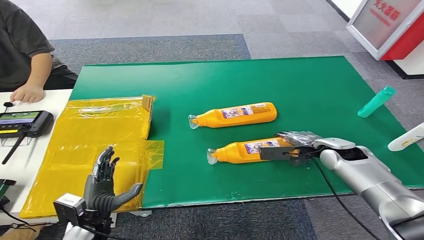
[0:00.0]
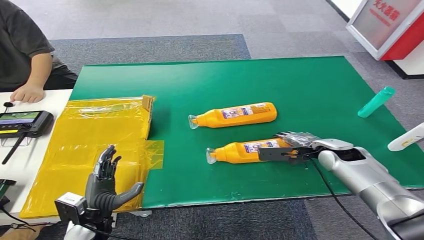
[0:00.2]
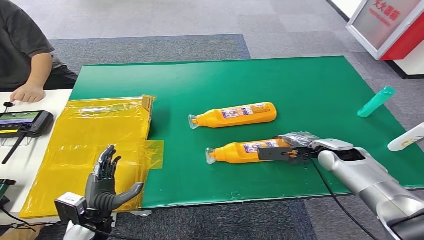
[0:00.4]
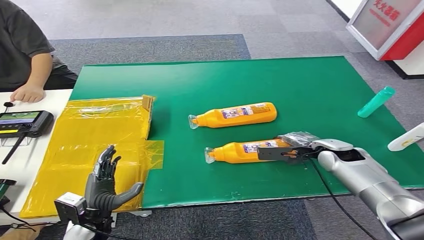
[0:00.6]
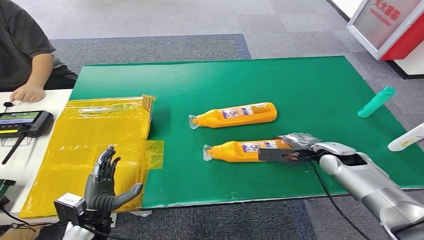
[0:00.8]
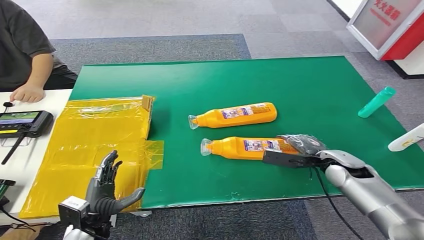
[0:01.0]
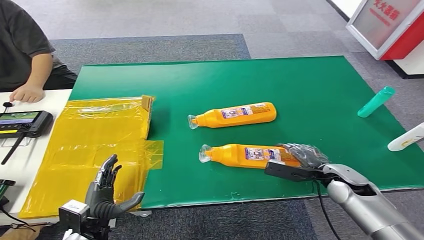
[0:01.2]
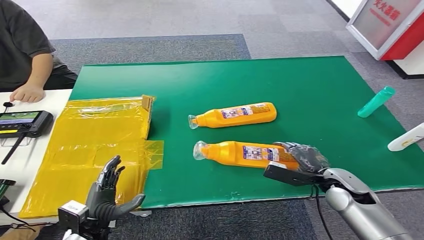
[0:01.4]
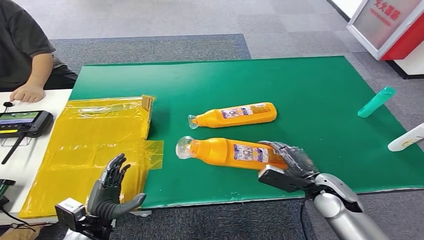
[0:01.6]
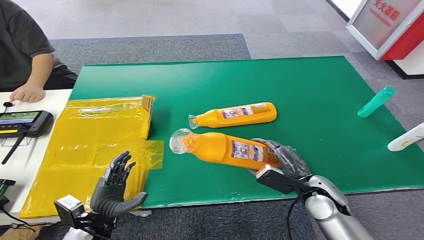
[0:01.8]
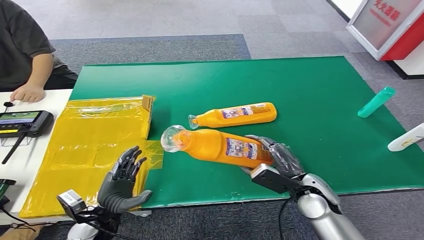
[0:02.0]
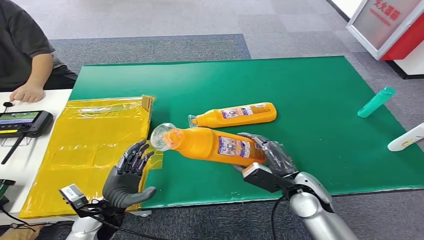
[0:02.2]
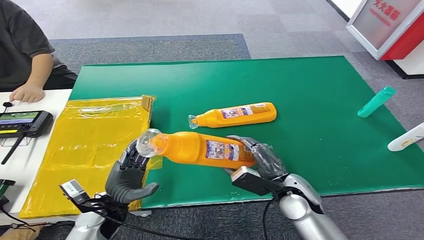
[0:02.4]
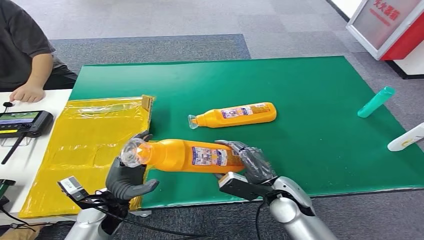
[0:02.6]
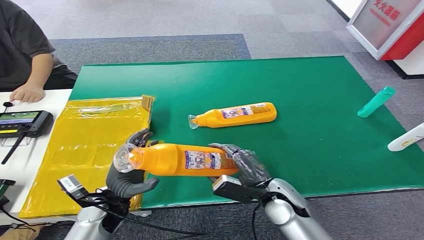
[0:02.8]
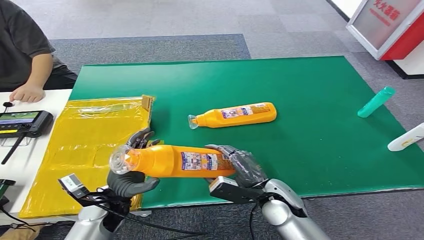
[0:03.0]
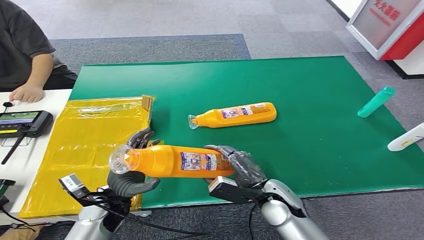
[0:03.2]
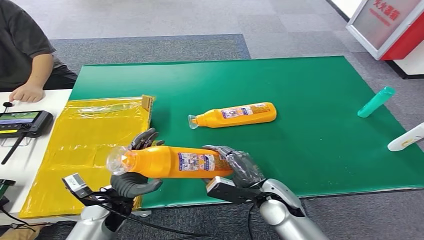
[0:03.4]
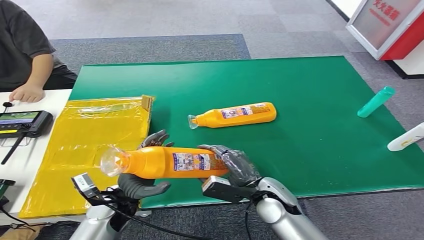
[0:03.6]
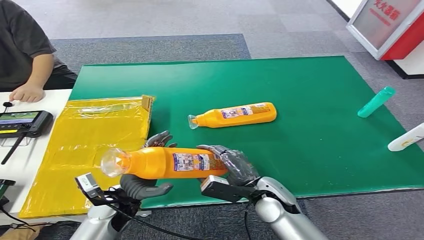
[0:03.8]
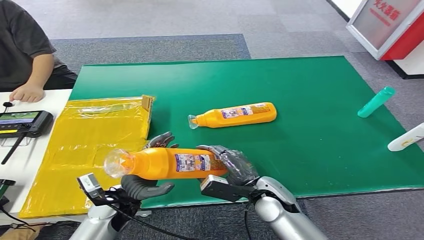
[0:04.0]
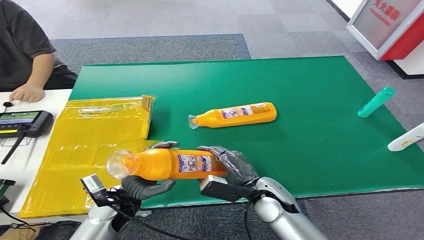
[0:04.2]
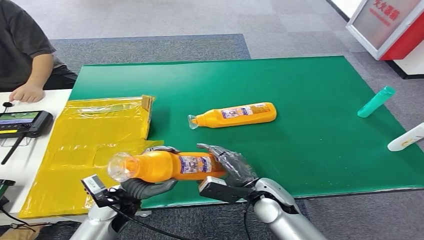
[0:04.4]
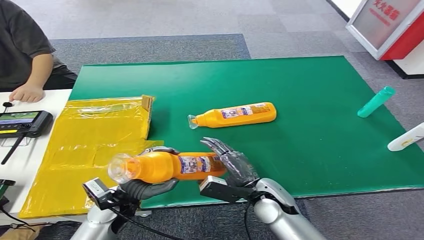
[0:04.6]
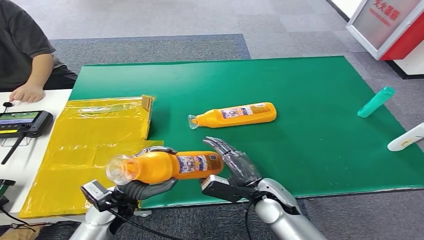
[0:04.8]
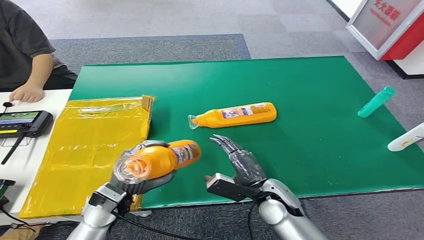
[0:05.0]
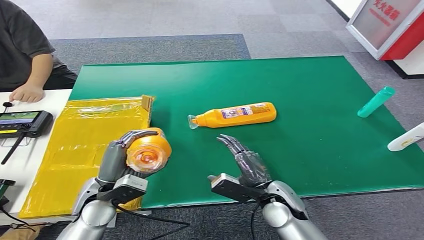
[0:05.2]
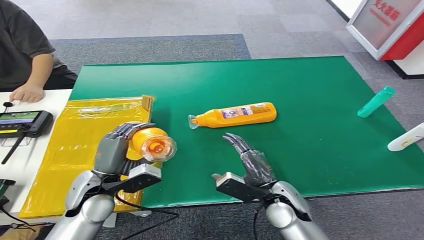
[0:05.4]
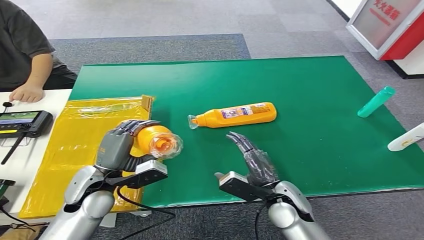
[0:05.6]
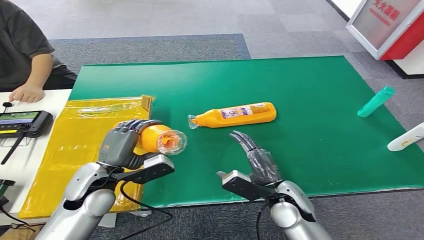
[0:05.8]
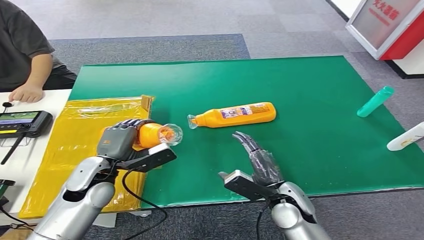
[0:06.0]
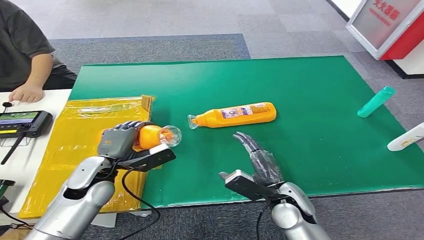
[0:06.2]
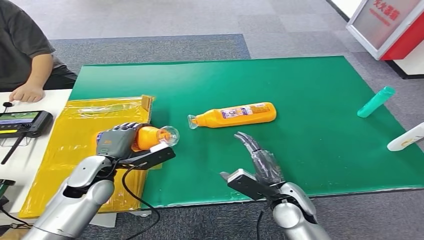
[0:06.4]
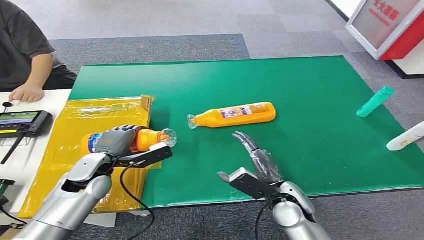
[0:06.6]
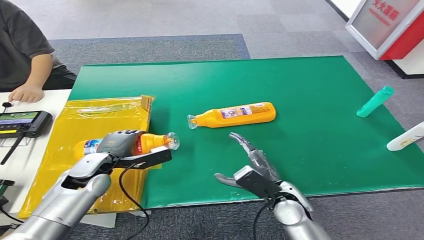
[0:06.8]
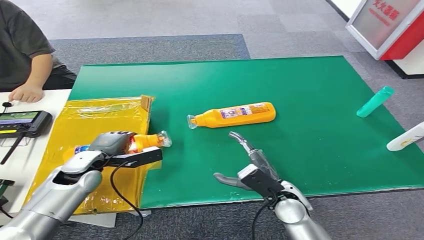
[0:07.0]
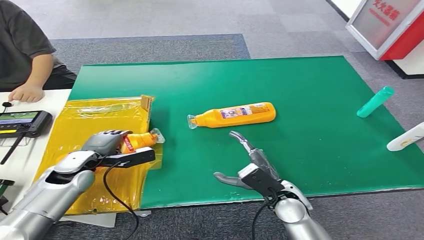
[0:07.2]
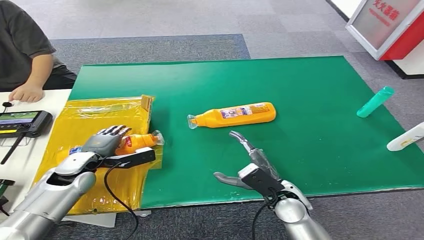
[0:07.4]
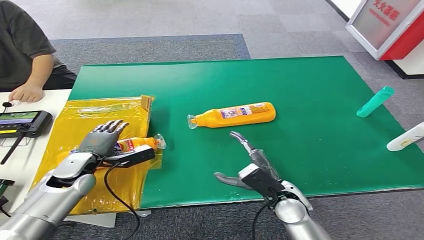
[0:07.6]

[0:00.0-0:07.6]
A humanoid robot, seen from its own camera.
Step, 0:02.0 to 0:07.6: Turn the bottle to the front side.
0:00.0 to 0:01.6: The right hand shifts about 10 cm backward.
0:01.6 to 0:03.0: The right hand shifts roughly 10 cm to the left; the left hand goes about 10 cm forward and upward.
0:03.0 to 0:04.6: The hands make only small movements.
0:04.6 to 0:06.0: The left hand heads upward and forward, covering approximately 10 cm.
0:06.0 to 0:07.6: The left hand heads to the left, covering roughly 5 cm.
